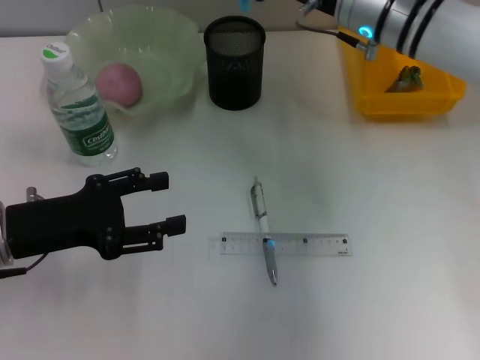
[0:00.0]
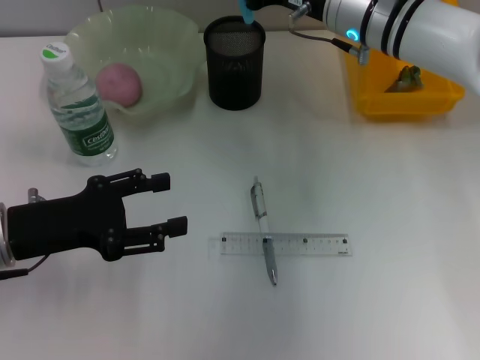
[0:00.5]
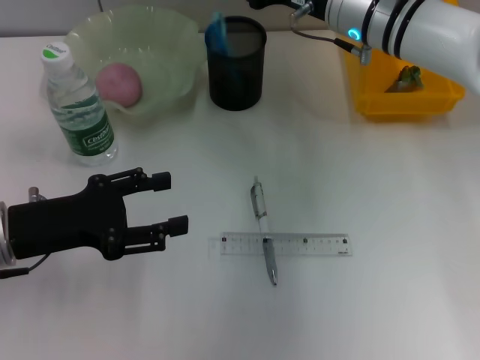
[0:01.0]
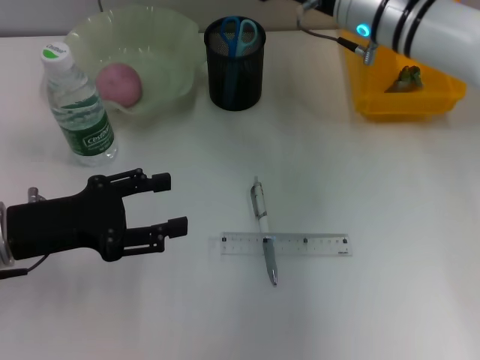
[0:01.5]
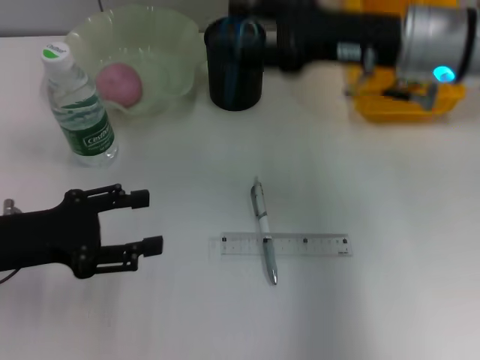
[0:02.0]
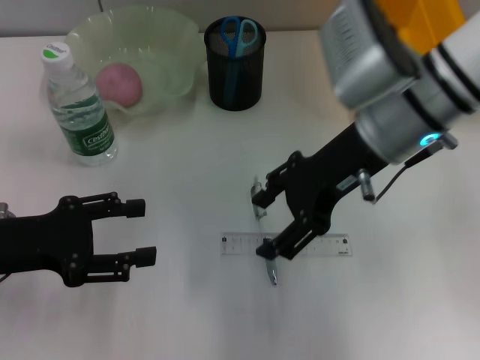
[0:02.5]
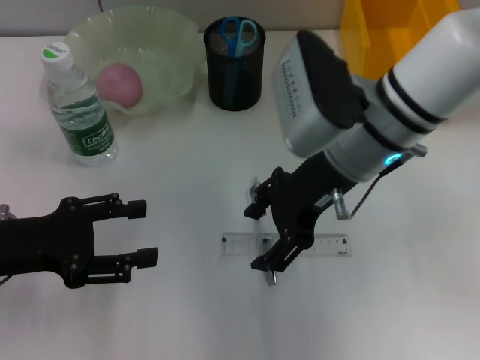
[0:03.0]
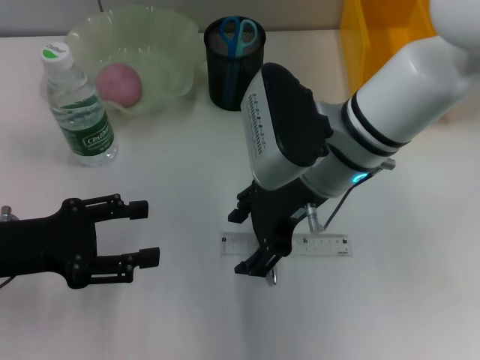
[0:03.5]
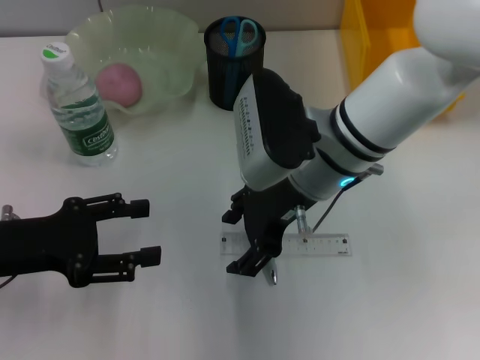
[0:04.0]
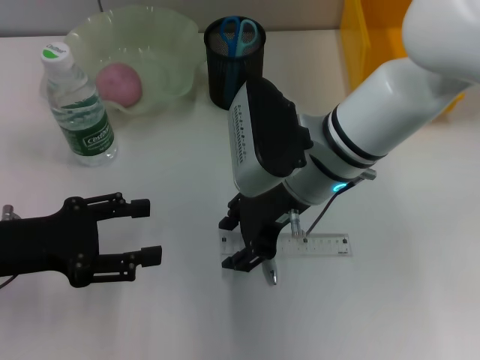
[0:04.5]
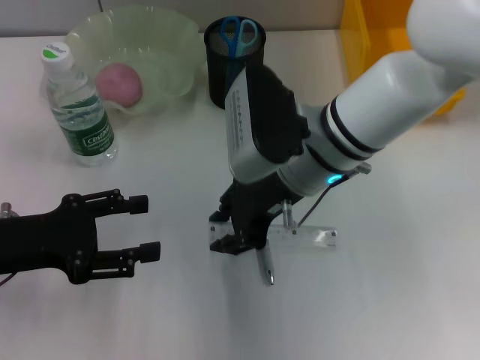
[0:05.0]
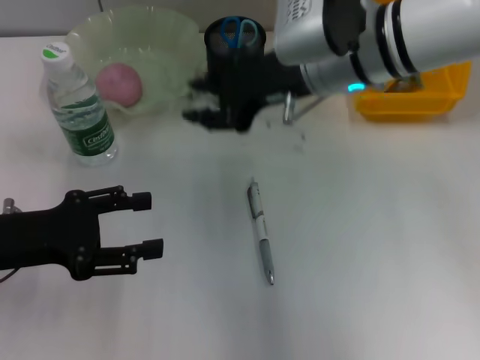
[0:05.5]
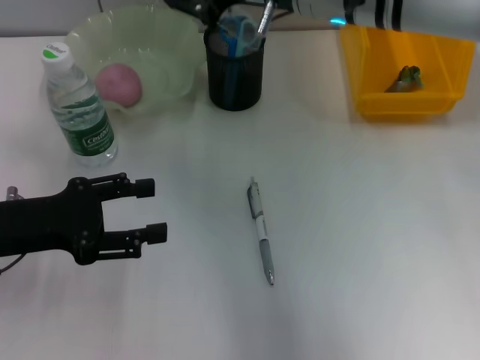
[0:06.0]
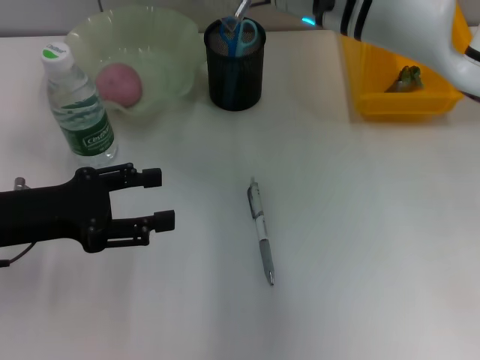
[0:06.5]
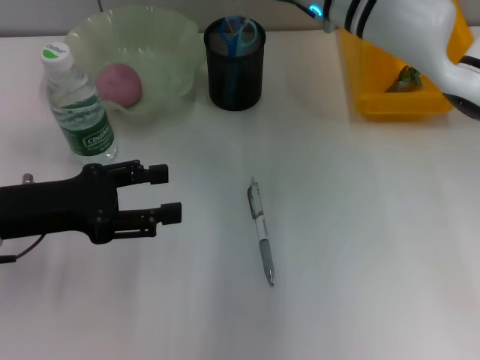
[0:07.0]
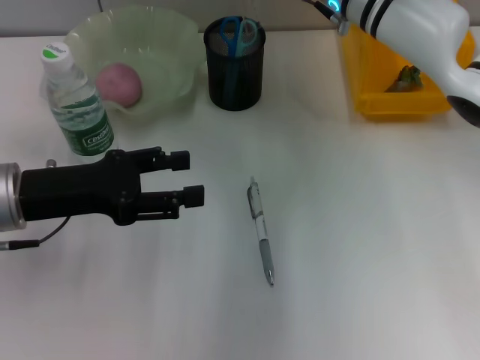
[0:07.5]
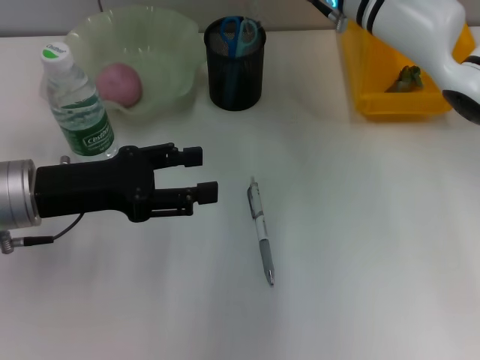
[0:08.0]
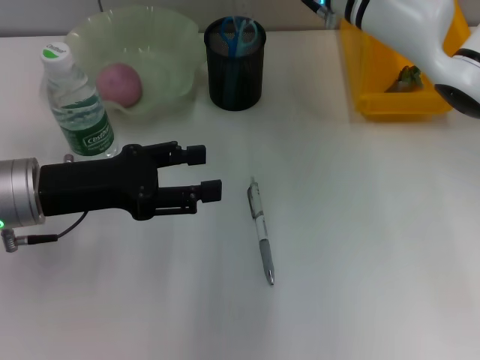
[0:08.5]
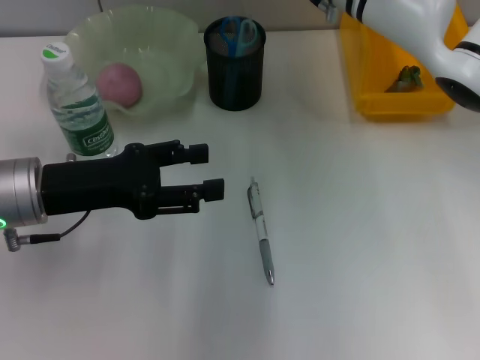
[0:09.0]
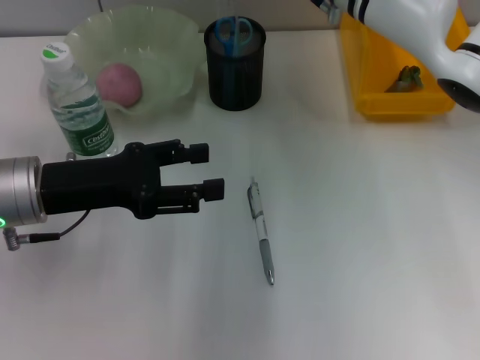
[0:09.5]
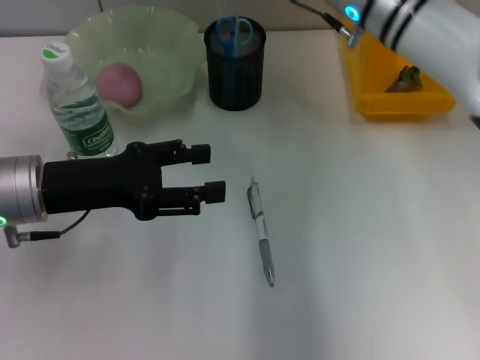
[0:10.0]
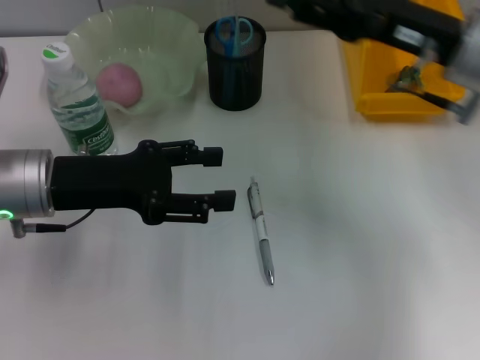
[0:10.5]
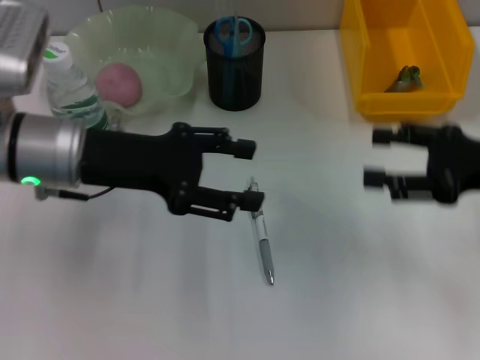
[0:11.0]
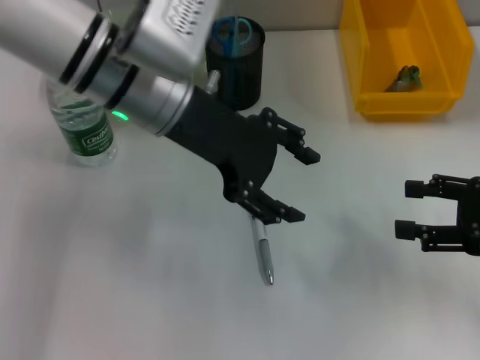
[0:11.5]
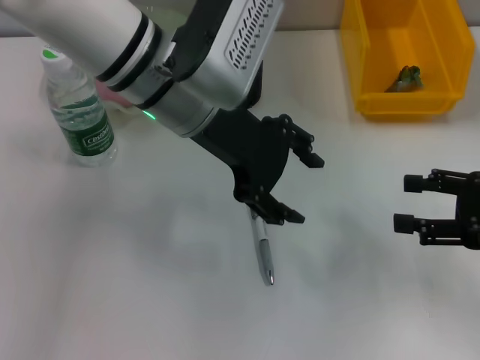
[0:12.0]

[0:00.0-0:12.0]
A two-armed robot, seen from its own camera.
Step, 0:01.5 to 0:04.5: Grab the ruler with the right hand.
Step, 0:05.0 to 0:08.5: Place the ruler into the pen holder with the right hand.
0:00.0 to 0:02.0: The right gripper travels backward by roughly 5 cm, and opens.
0:02.0 to 0:04.0: The right gripper travels to the left and downward by approximately 10 cm.
0:04.0 to 0:06.0: The right gripper heads upward and forward, covering about 10 cm, and closes up.
0:06.0 to 0:08.0: The left gripper changes place by roughly 5 cm, while the right gripper moves about 5 cm.
0:08.0 to 0:10.0: The right gripper opens up.
0:10.0 to 0:12.0: The left gripper travels to the right, upward and forward by approximately 20 cm, while the right gripper is displaced to the right and backward by about 25 cm.

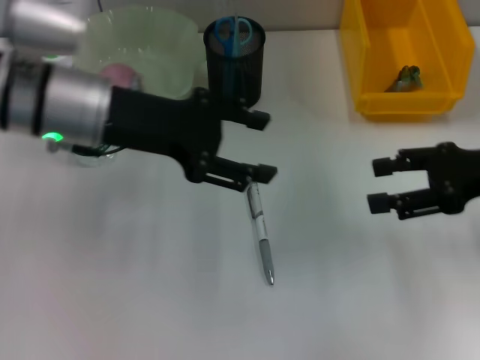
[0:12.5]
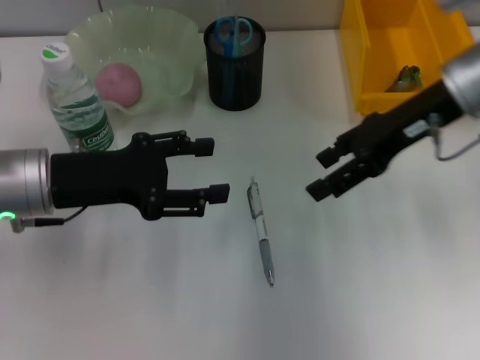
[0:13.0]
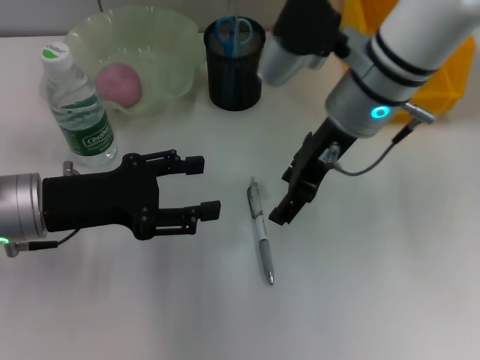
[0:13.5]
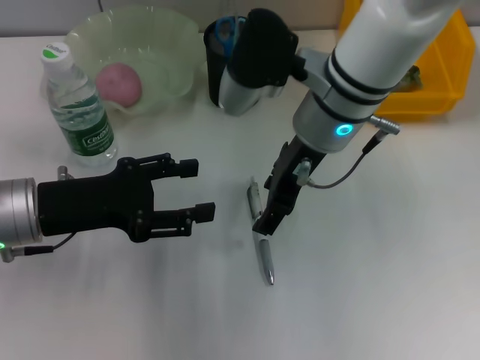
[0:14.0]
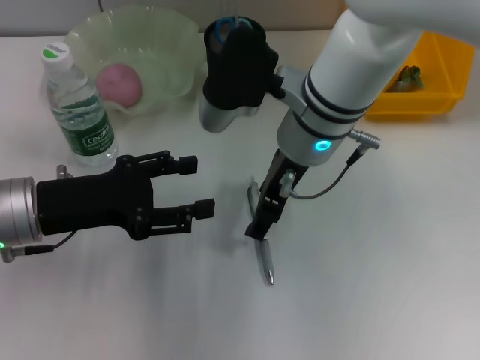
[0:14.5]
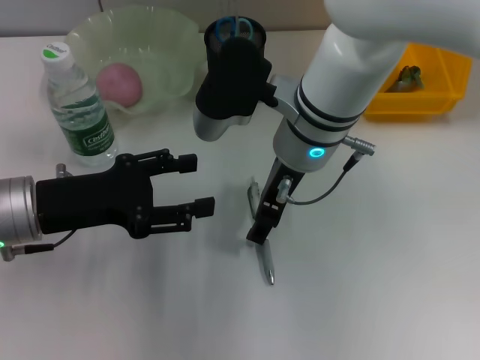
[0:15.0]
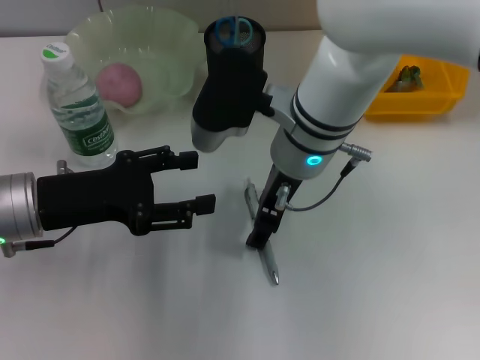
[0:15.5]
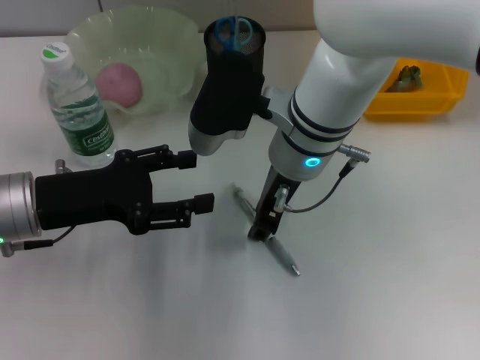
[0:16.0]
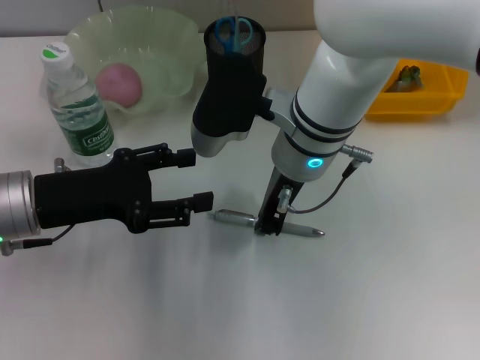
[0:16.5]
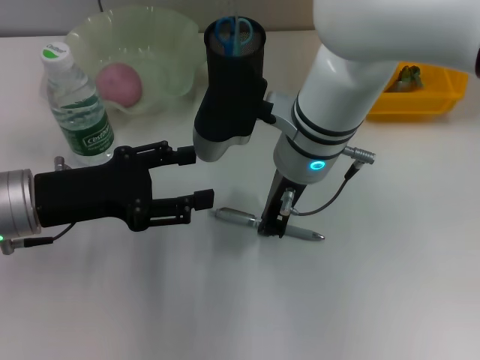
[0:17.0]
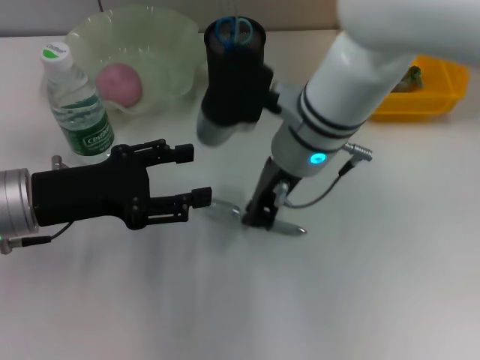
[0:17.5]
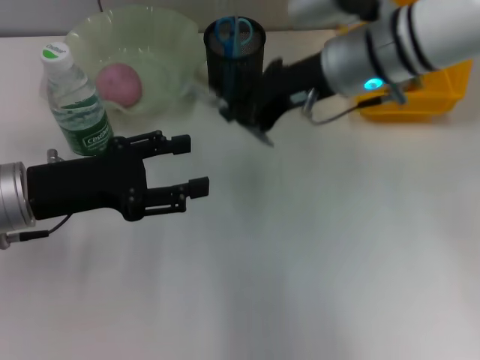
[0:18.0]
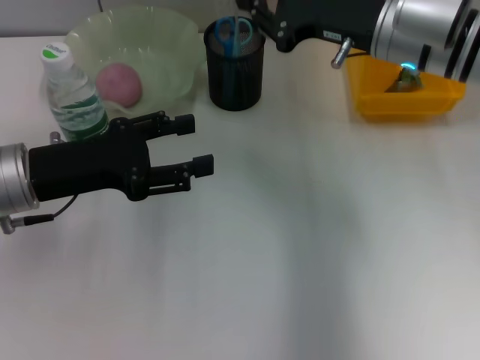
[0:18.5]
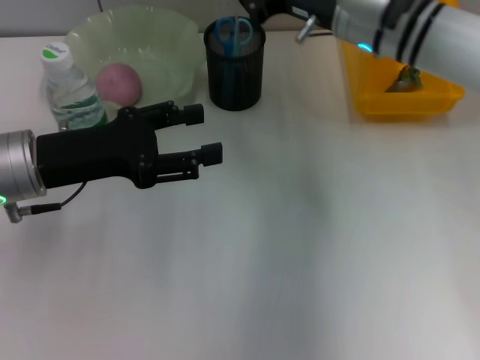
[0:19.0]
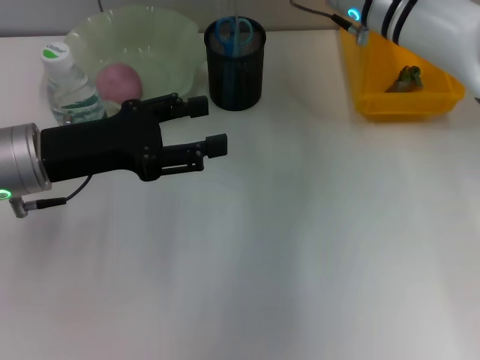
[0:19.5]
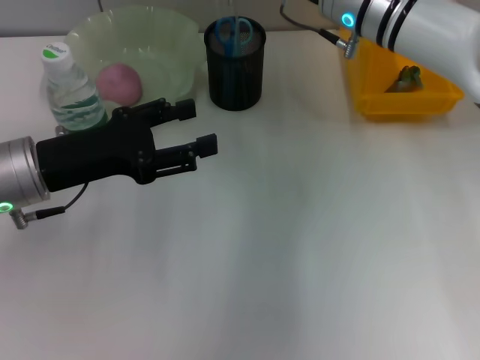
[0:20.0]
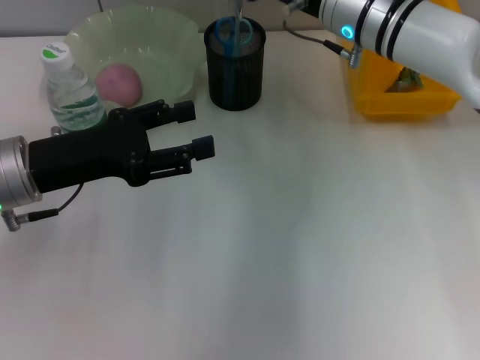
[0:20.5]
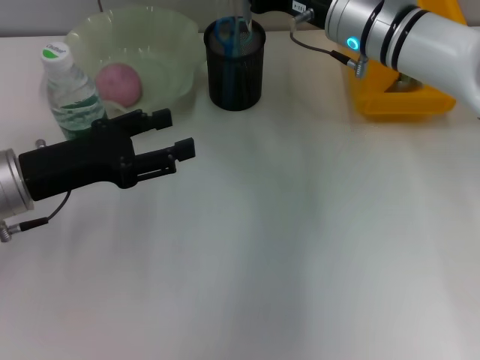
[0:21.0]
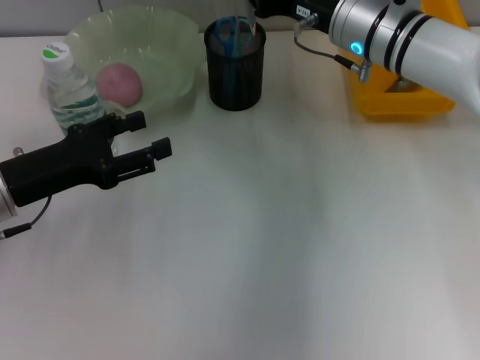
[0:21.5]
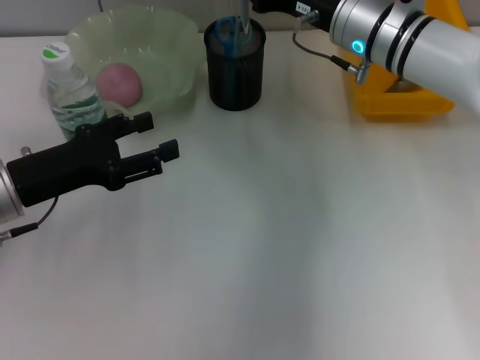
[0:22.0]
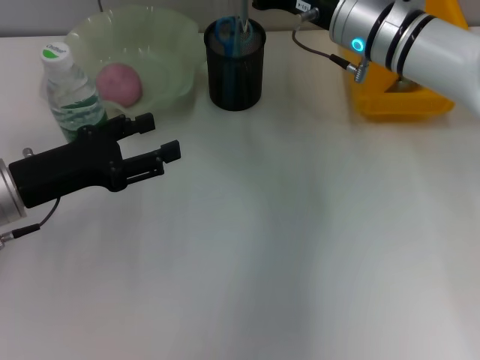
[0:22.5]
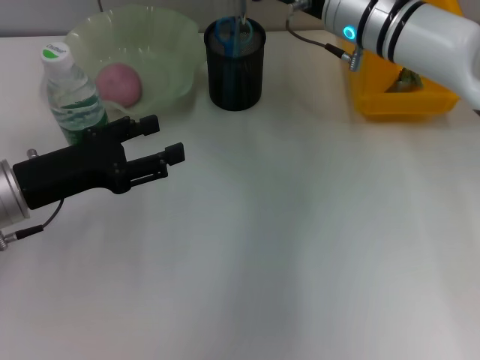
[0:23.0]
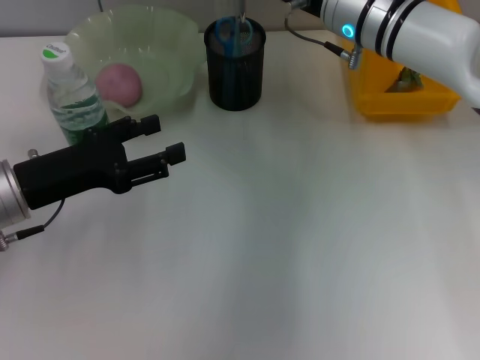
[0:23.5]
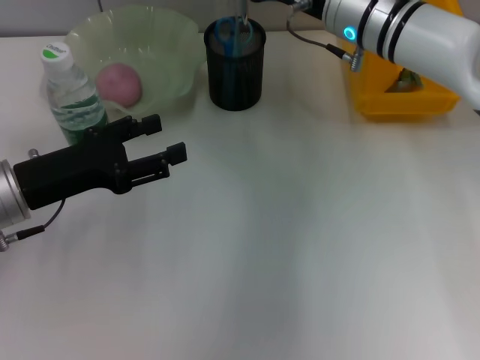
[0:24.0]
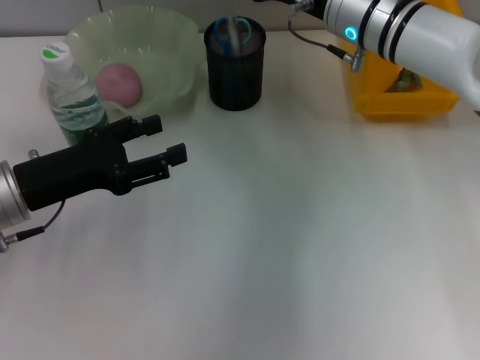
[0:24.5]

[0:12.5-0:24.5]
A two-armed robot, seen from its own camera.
Step, 0:12.5 to 0:17.0: Grab the gray spring-action pen with the right hand.
Step, 0:17.5 to 0:24.5: Place the gray spring-action pen into the pen holder with the right hand.
0:12.5 to 0:14.5: The left gripper moves downward, to the left and backward, some 15 cm, while the right gripper moves to the left, roughly 25 cm.
0:14.5 to 0:16.5: The right gripper closes up.
0:16.5 to 0:18.5: The right gripper travels to the right by some 10 cm.
0:18.5 to 0:20.5: The right gripper ends up approximately 5 cm from where it was.
0:20.5 to 0:24.5: The grippers move only a little.

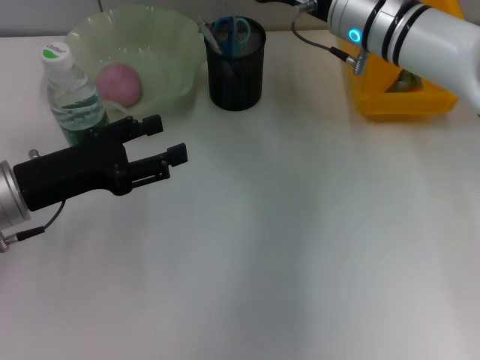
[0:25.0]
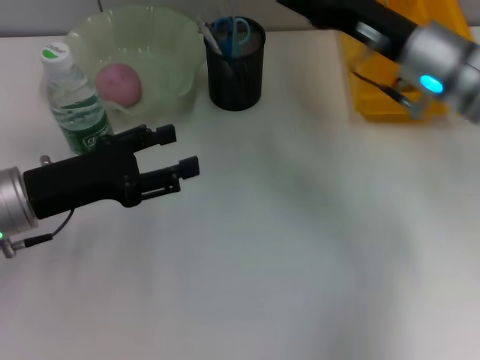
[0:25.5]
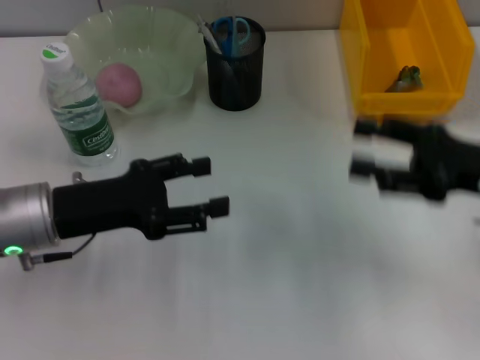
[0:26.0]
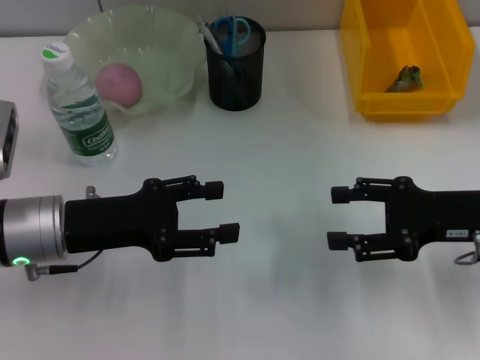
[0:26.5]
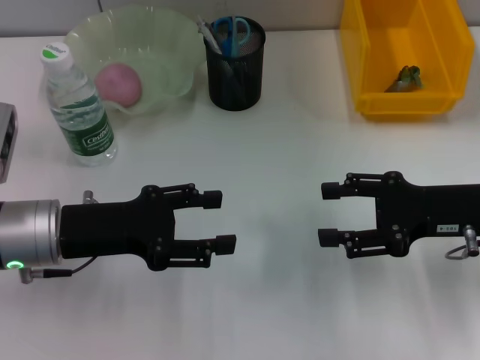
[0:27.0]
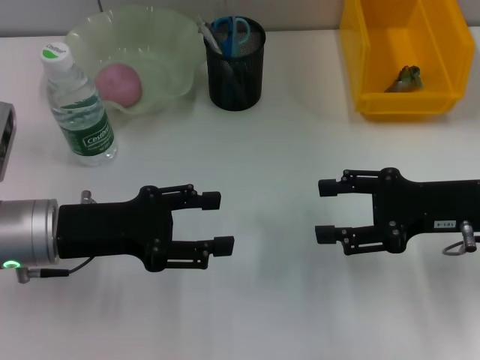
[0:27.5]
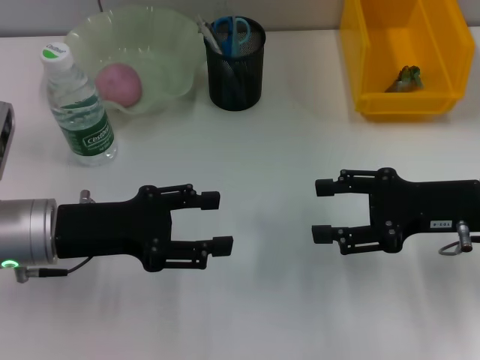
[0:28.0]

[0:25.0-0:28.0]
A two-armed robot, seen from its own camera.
0:25.0 to 0:26.5: The right gripper moves backward and to the right, some 20 cm.
0:26.5 to 0:28.0: The grippers stay close to where they were, moving slightly.
